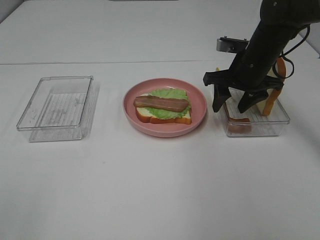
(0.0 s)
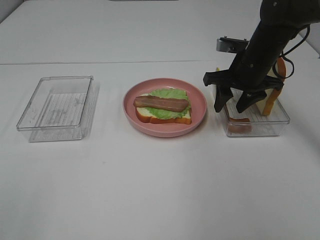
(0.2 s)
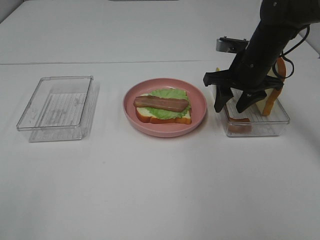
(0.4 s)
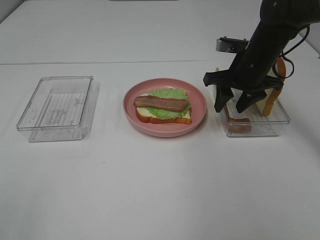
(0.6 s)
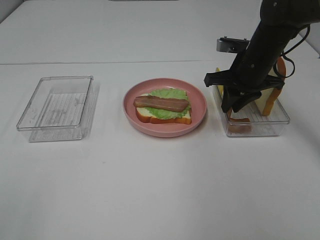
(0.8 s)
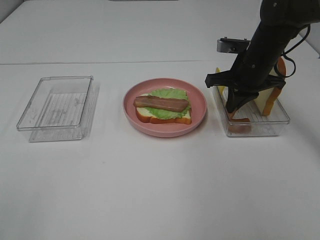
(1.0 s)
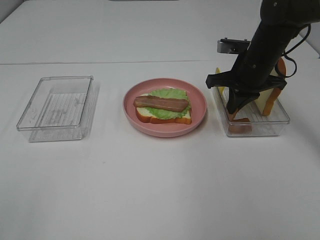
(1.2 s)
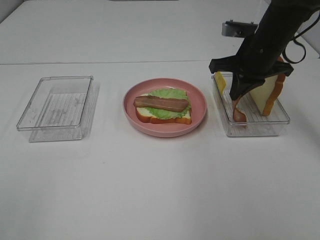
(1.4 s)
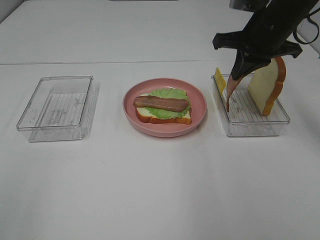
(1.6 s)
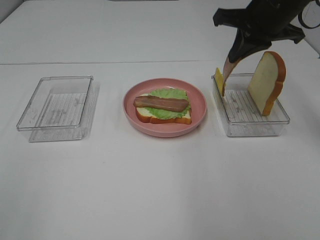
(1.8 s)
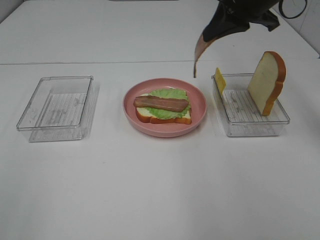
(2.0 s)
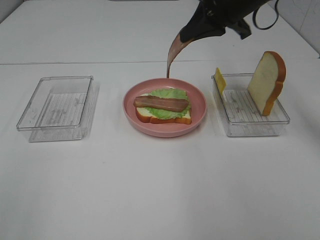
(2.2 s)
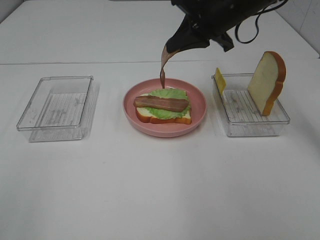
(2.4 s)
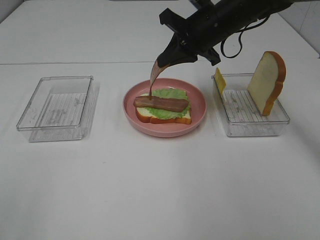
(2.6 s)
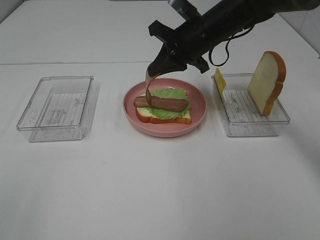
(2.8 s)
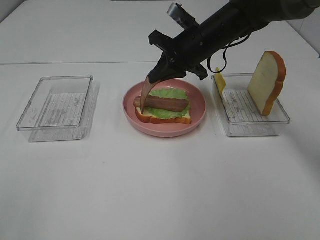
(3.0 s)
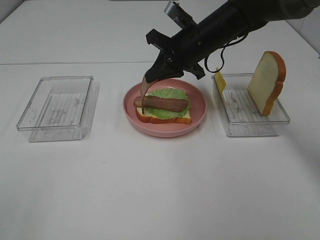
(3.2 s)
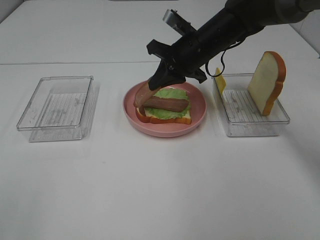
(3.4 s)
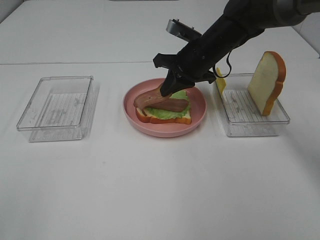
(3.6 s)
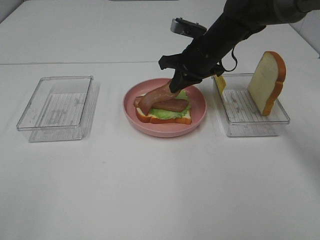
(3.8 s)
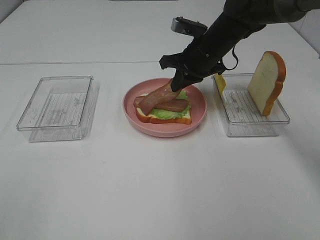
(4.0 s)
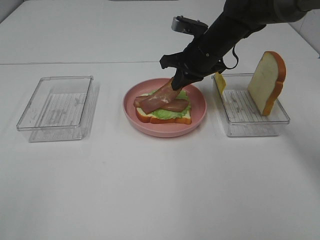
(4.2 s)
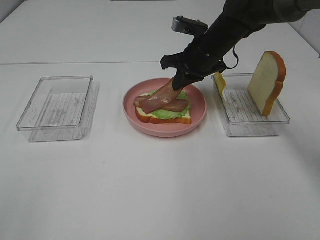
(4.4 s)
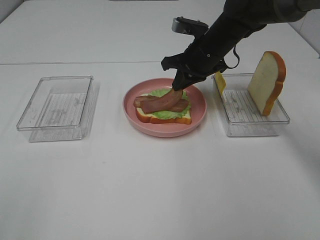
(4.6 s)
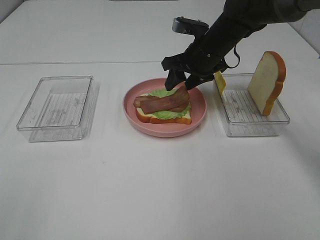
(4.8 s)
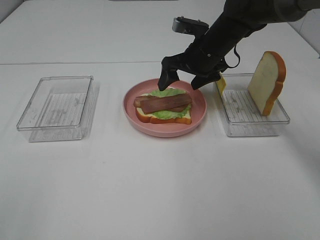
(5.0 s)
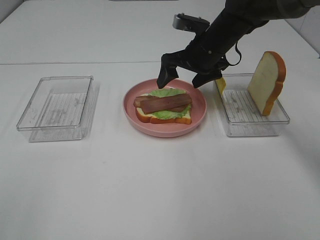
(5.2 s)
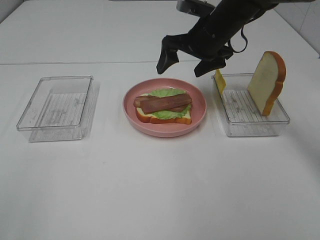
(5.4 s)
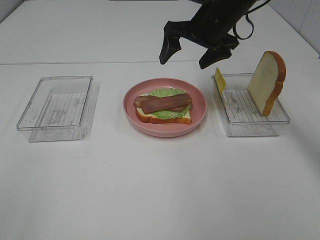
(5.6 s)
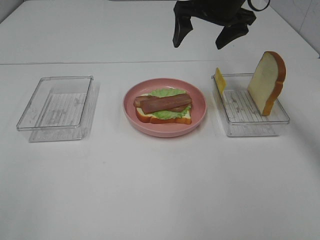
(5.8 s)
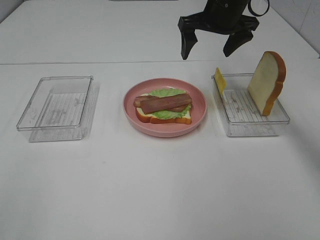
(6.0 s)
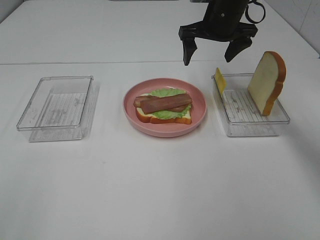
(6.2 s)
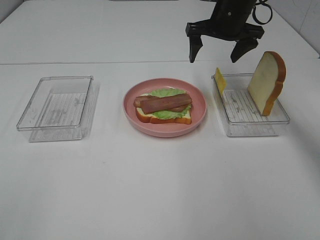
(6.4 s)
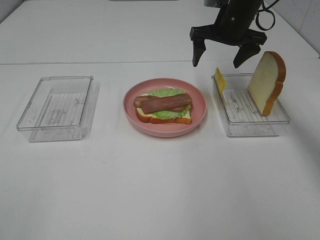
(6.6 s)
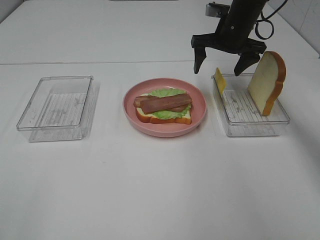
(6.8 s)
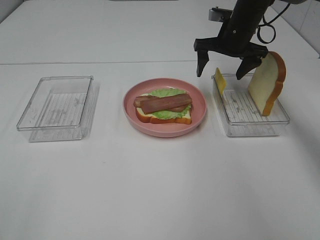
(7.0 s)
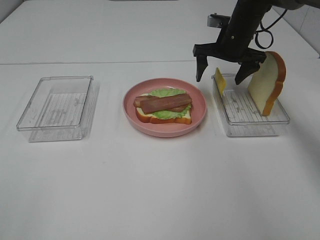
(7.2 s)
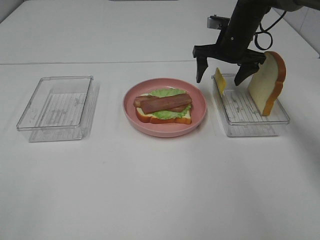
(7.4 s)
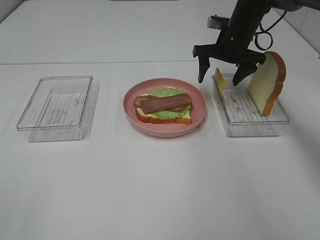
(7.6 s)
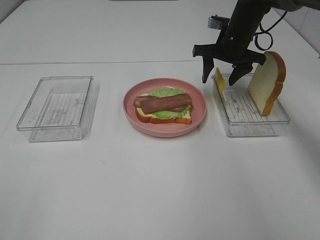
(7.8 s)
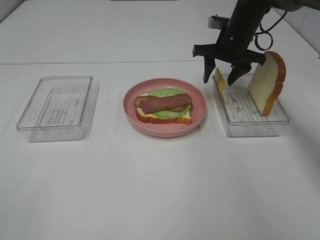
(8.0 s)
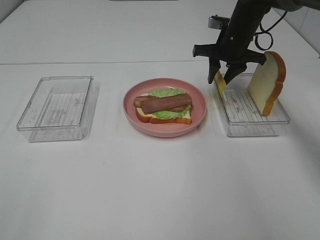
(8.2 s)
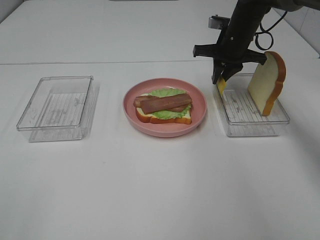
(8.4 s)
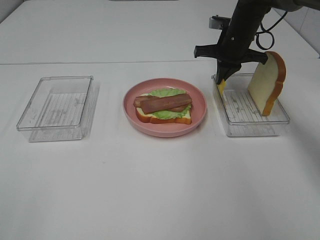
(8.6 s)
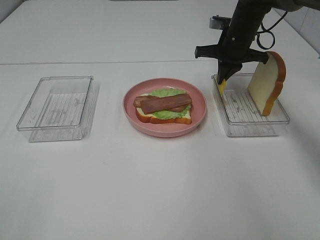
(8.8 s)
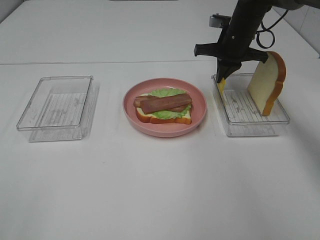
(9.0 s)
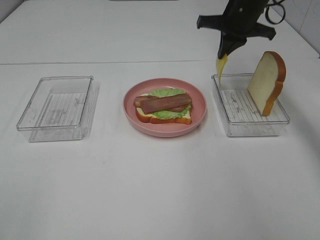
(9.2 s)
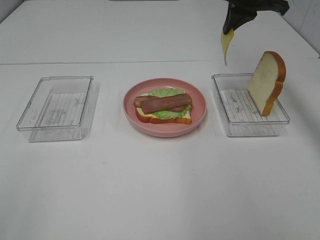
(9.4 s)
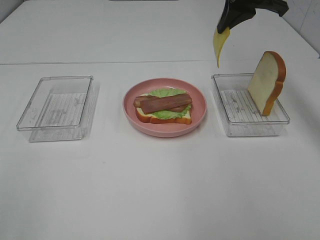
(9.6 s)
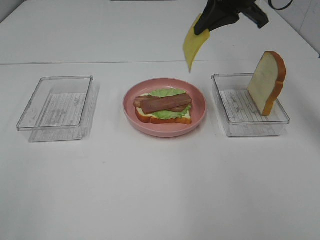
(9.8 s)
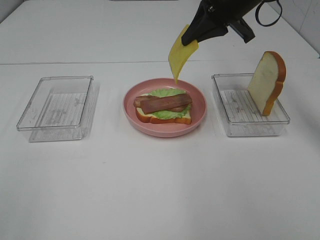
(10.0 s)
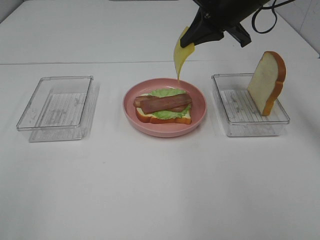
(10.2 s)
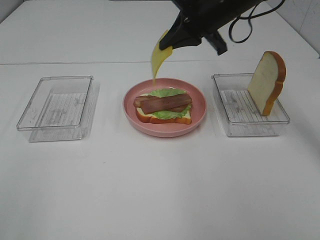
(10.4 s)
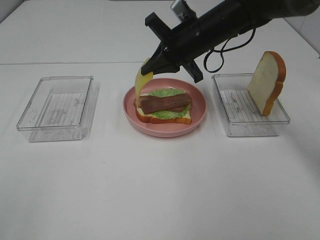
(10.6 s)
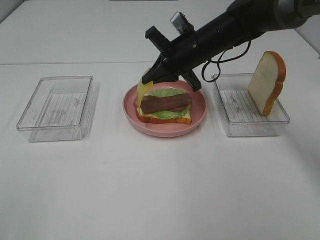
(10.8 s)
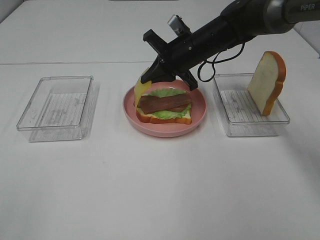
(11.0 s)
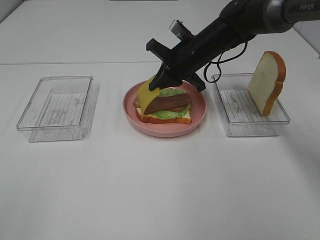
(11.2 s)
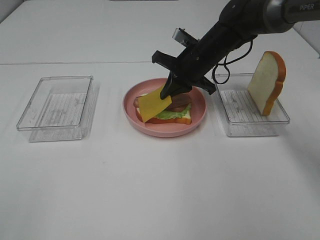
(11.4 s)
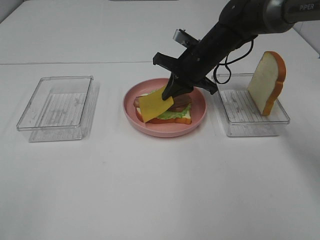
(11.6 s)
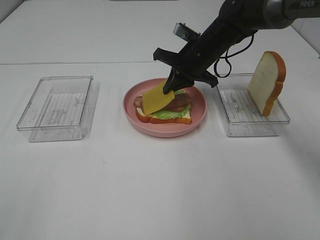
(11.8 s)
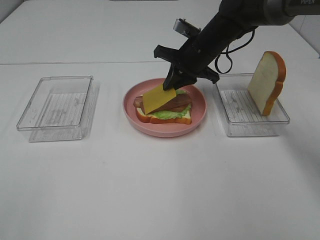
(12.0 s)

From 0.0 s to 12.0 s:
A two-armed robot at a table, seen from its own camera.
Task of the whole recording: Make sandwiches.
Step, from 1.6 s to 5.0 s: Right hand:place bacon on bacon.
Step, from 5.2 s to 9.0 s: Right hand:grab the cheese slice.
From 0.0 s to 1.6 s: The right gripper heads upward, covering some 10 cm, and closes up.
From 1.6 s to 3.0 s: The right gripper is displaced to the left and downward by about 10 cm.
From 4.4 s to 6.0 s: The right gripper heads upward, covering some 10 cm, and opens its fingers.
From 6.0 s to 7.6 s: The right gripper is displaced downward by approximately 10 cm.
From 7.6 s to 9.0 s: The right gripper closes up.
From 9.0 s to 10.4 s: The right gripper goes approximately 15 cm backward, upward and to the left.
From 10.4 s to 12.0 s: The right gripper travels downward by about 10 cm.

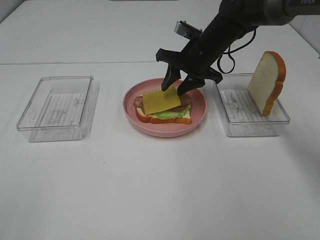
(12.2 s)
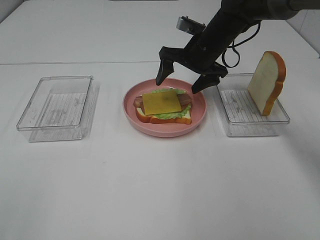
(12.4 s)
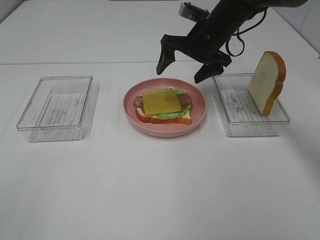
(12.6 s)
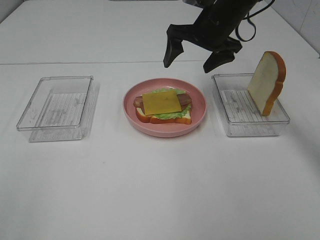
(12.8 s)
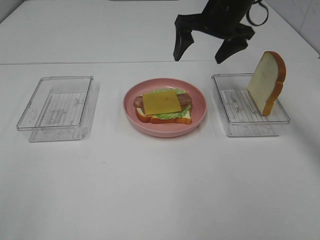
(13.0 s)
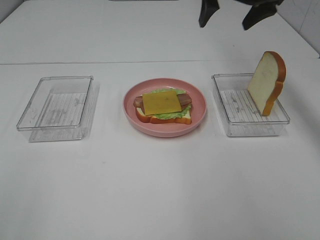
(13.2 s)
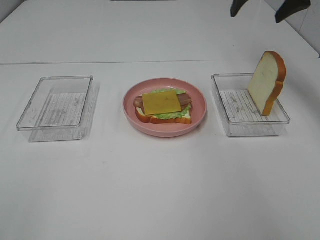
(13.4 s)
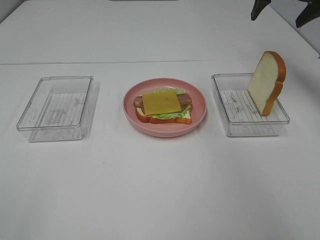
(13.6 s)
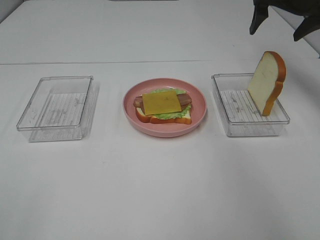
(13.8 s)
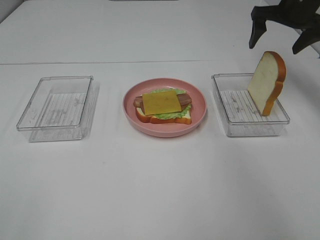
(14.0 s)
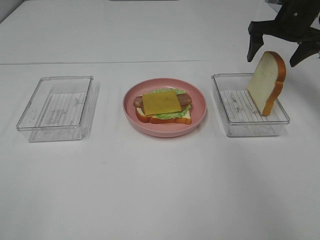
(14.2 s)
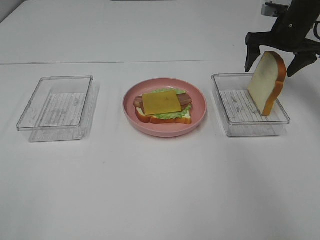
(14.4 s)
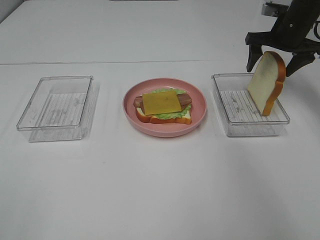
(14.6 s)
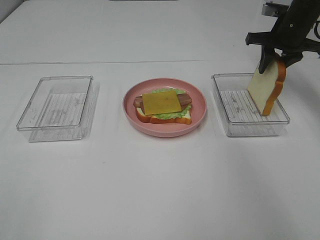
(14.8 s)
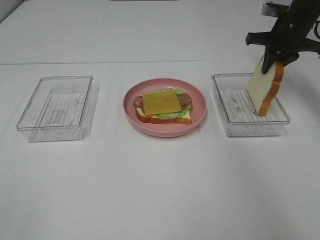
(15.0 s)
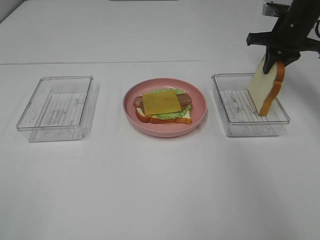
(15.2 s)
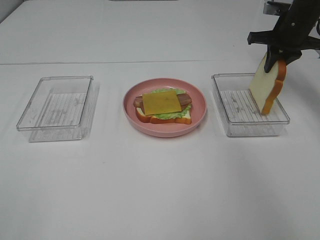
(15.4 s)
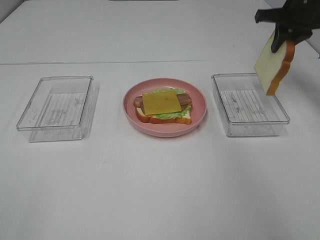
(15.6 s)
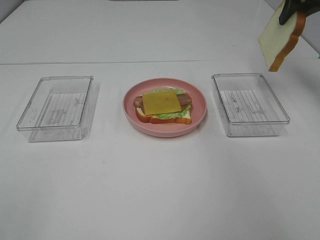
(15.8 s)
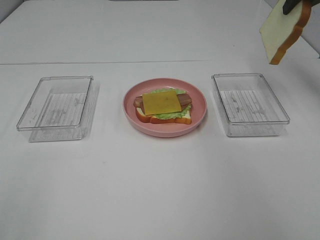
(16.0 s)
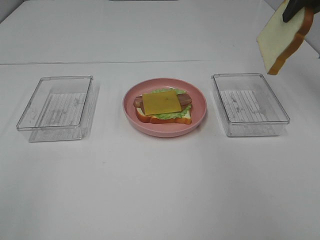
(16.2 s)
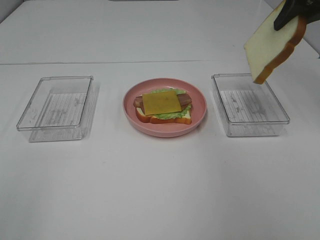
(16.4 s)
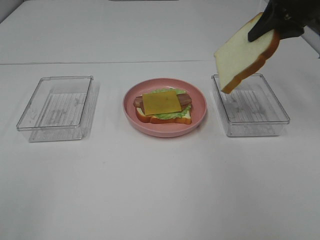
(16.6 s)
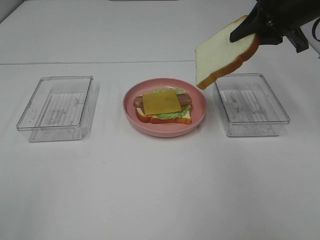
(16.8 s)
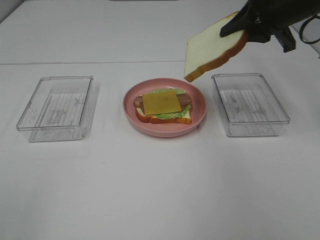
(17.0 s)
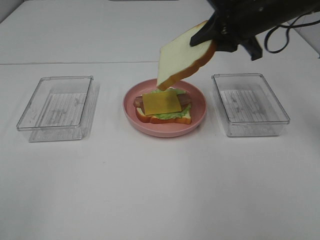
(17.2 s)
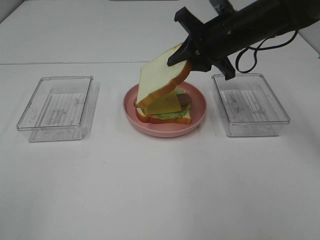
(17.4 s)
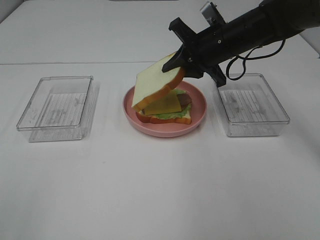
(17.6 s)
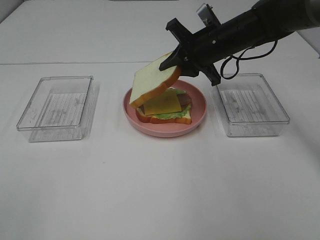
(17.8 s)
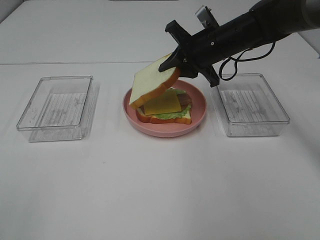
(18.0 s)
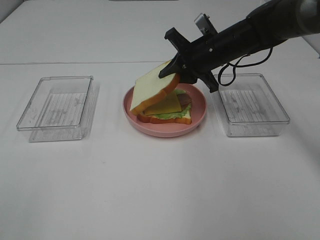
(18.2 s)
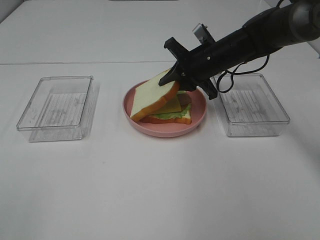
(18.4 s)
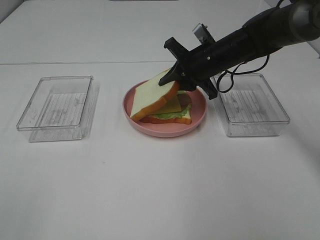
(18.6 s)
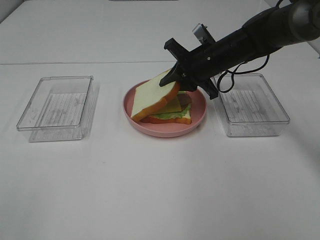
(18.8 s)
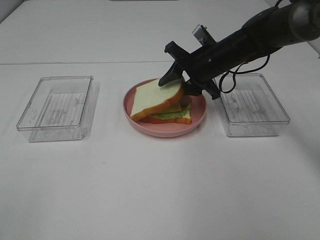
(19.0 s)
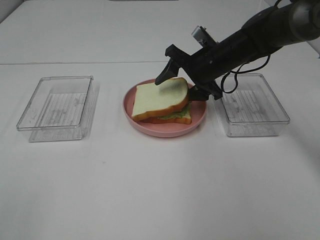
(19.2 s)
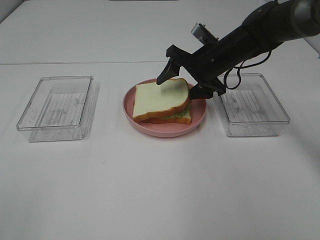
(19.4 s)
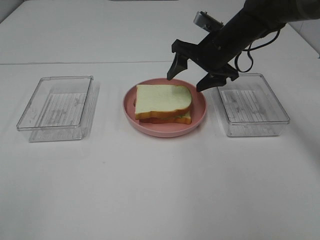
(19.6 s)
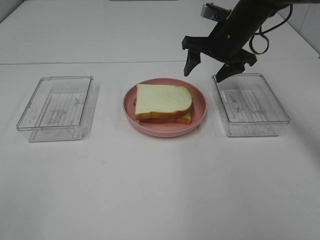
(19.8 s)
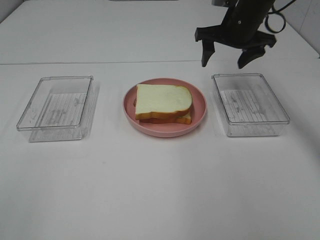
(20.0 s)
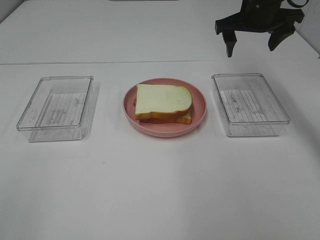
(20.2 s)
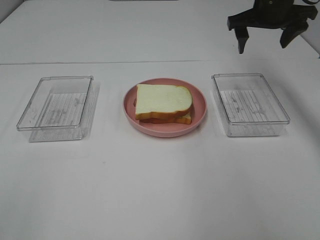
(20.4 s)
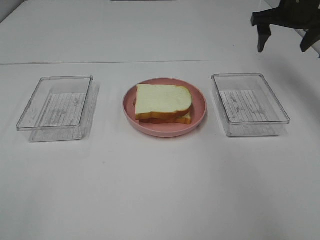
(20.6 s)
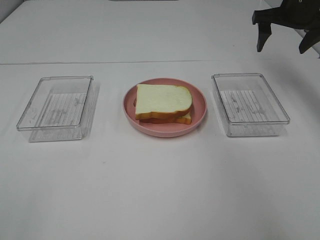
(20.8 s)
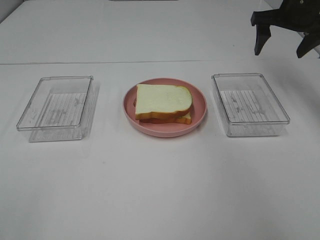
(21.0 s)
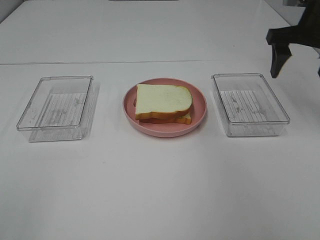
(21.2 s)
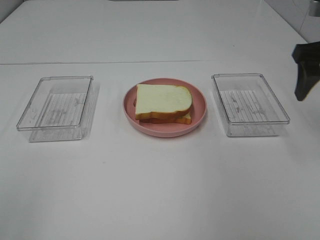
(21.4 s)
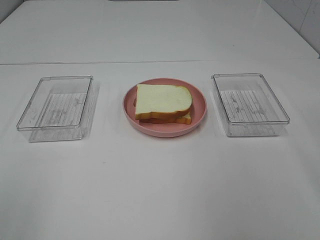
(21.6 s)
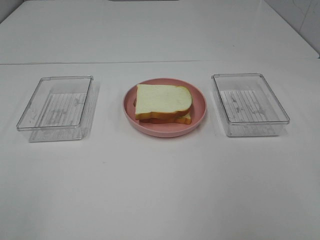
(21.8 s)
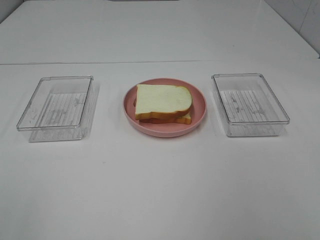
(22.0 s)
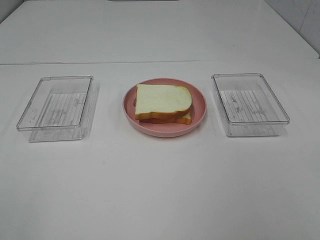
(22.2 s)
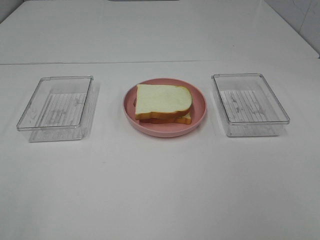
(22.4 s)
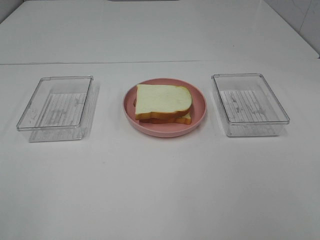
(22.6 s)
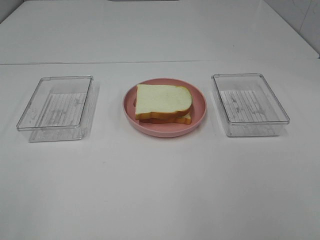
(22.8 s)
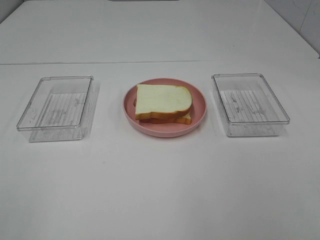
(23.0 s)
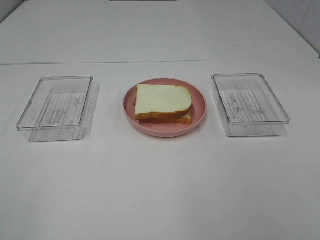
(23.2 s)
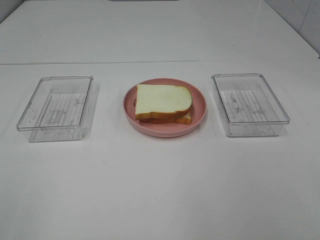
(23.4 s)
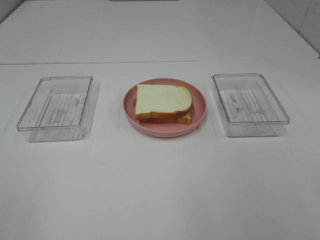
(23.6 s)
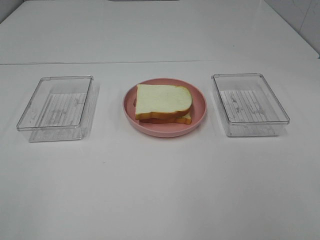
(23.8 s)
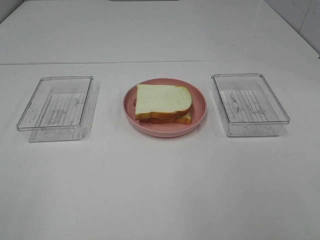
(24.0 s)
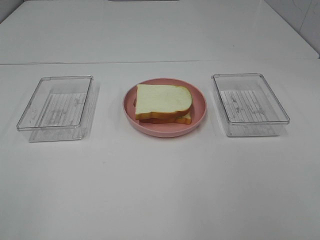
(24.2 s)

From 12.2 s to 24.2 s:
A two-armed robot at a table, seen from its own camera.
Task of the whole recording: Make sandwiches.
Step, from 12.4 s to 15.2 s: Right hand:grab the bread slice.
Step, from 15.4 s to 19.6 s: Right hand:place the bread slice on the cheese slice.
From 12.2 s to 13.8 s: The right gripper travels to the right and upward by approximately 20 cm, and opens its fingers.
From 13.8 s to 15.2 s: The right gripper goes about 5 cm downward, and closes its fingers.
From 15.2 s to 16.6 s: The right gripper moves backward and upward, some 15 cm.
From 16.6 s to 18.2 s: The right gripper is displaced downward and to the left by about 20 cm.
From 18.2 s to 19.8 s: The right gripper moves some 5 cm, and opens.
From 19.8 s to 21.2 s: The right gripper goes approximately 15 cm to the right, backward and upward.
From 21.2 s to 22.6 s: The right gripper travels backward by approximately 40 cm.
